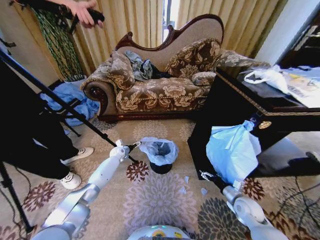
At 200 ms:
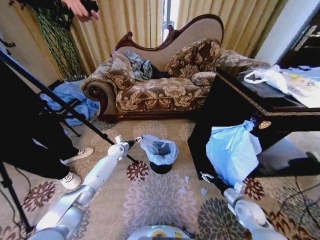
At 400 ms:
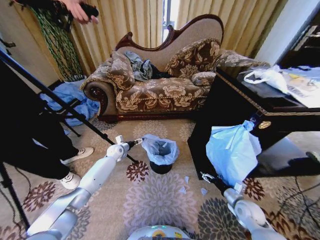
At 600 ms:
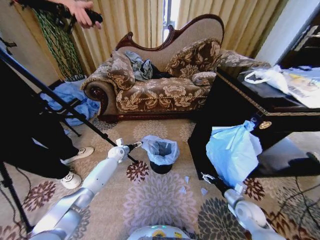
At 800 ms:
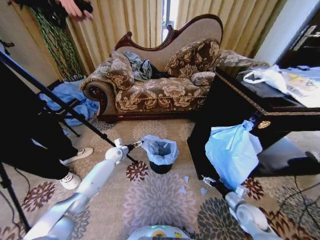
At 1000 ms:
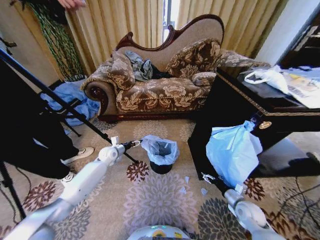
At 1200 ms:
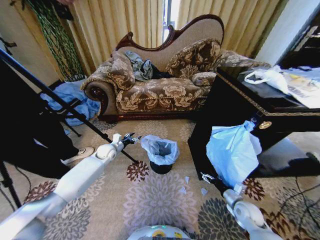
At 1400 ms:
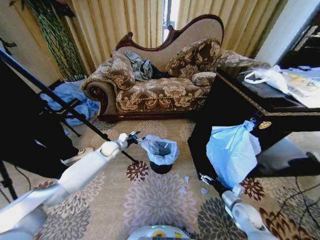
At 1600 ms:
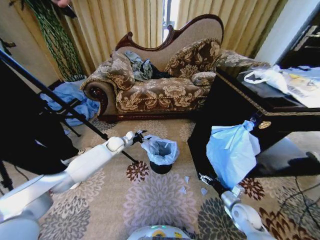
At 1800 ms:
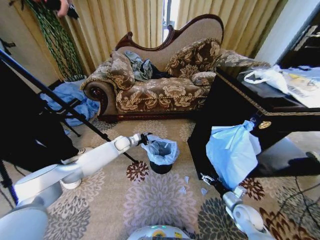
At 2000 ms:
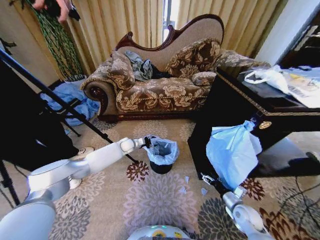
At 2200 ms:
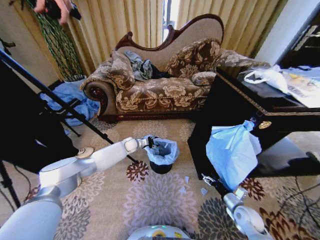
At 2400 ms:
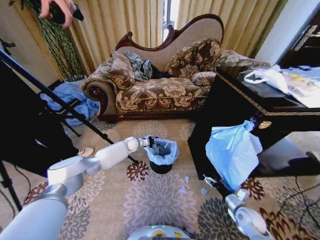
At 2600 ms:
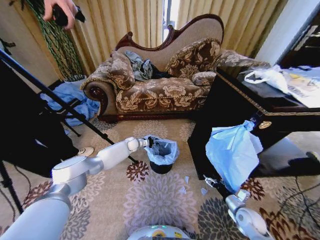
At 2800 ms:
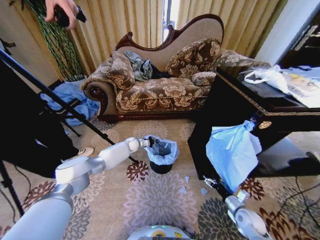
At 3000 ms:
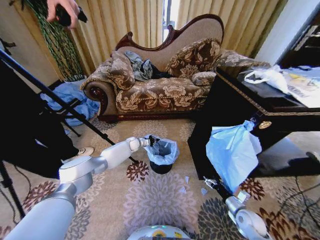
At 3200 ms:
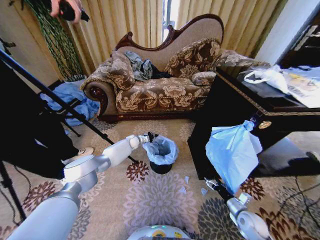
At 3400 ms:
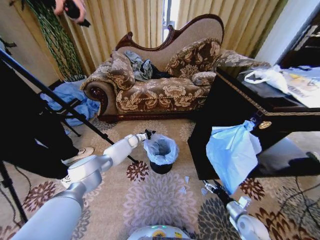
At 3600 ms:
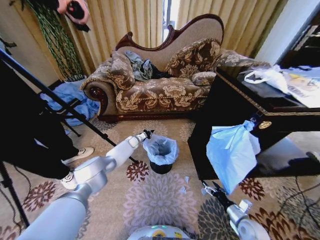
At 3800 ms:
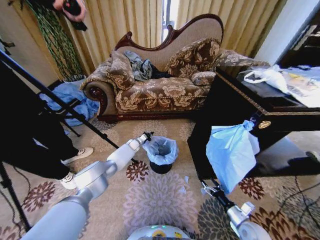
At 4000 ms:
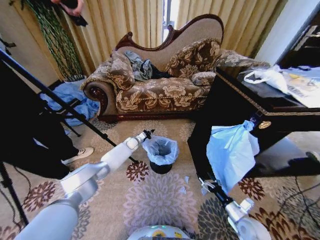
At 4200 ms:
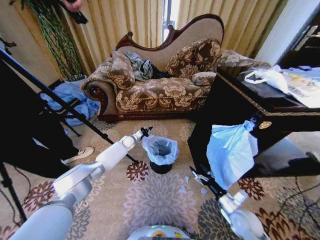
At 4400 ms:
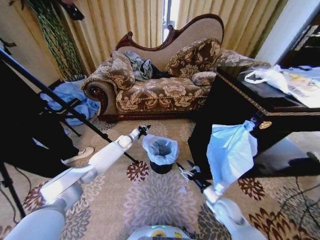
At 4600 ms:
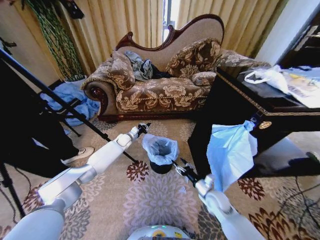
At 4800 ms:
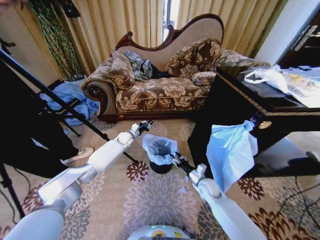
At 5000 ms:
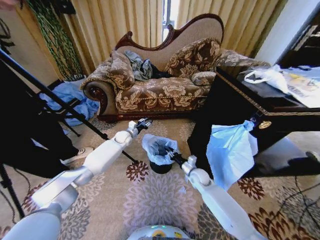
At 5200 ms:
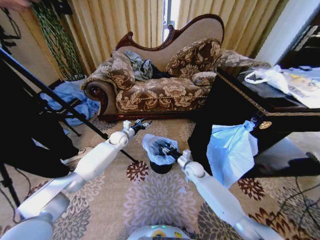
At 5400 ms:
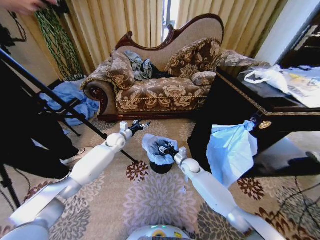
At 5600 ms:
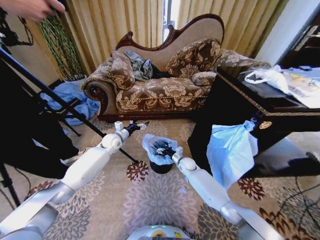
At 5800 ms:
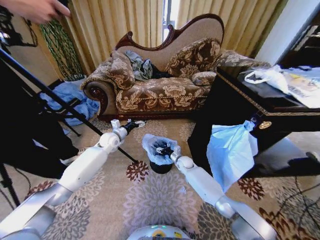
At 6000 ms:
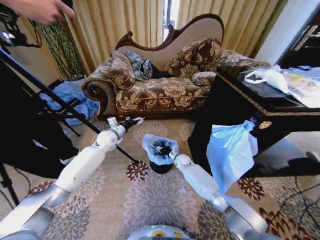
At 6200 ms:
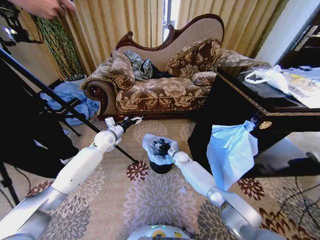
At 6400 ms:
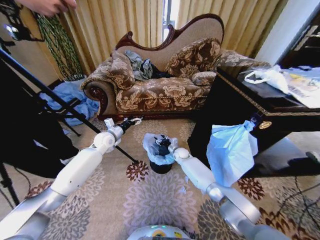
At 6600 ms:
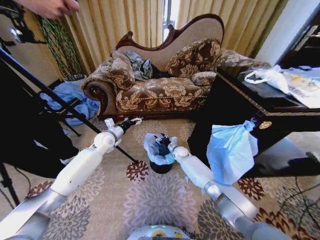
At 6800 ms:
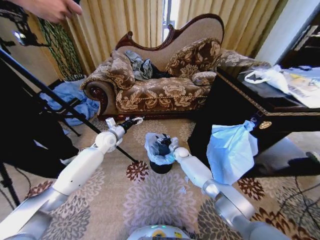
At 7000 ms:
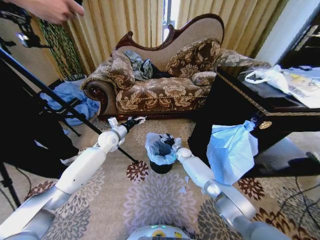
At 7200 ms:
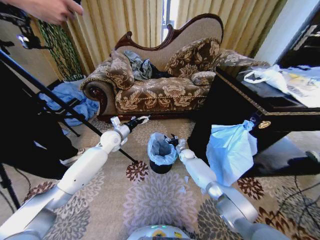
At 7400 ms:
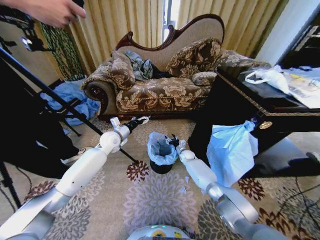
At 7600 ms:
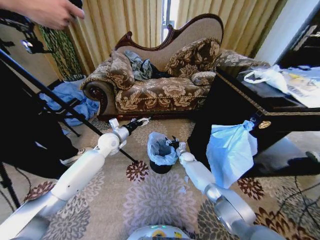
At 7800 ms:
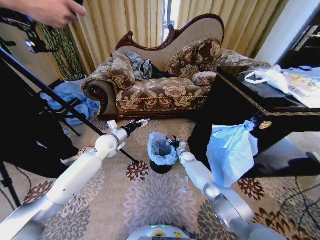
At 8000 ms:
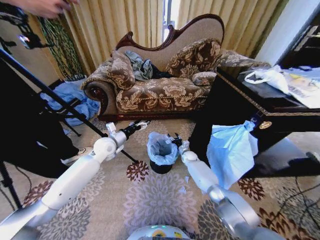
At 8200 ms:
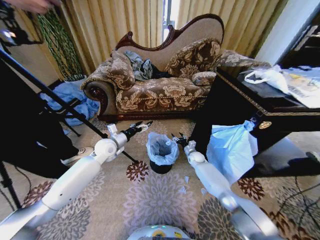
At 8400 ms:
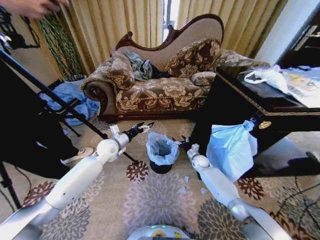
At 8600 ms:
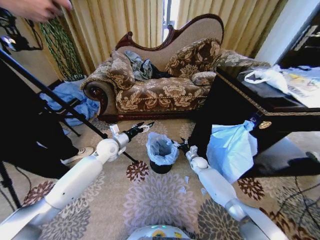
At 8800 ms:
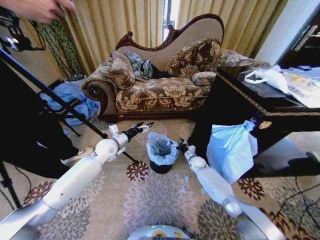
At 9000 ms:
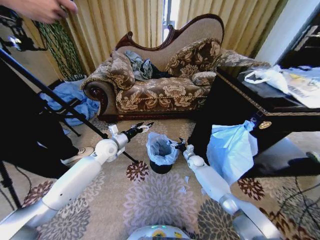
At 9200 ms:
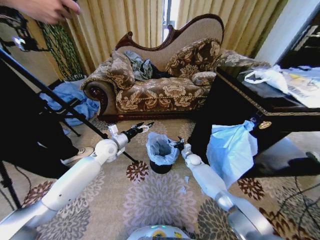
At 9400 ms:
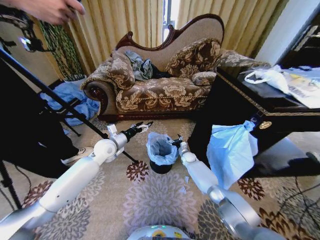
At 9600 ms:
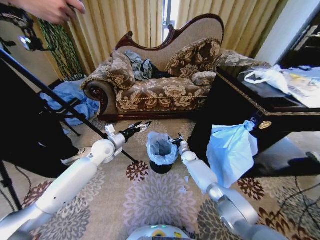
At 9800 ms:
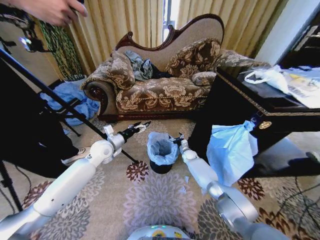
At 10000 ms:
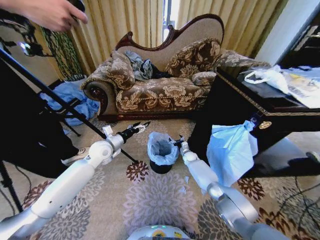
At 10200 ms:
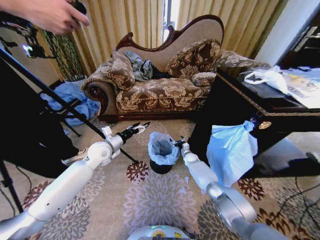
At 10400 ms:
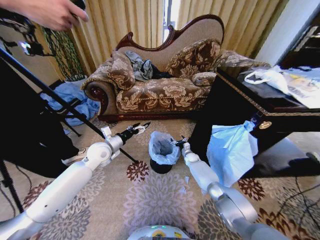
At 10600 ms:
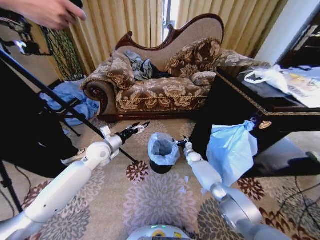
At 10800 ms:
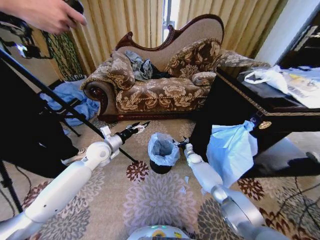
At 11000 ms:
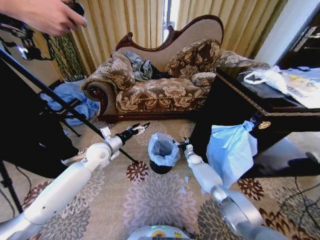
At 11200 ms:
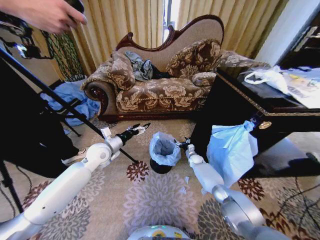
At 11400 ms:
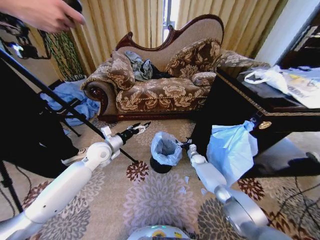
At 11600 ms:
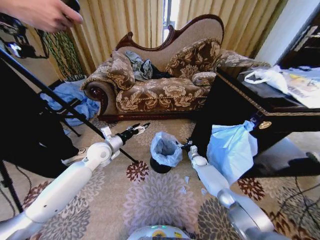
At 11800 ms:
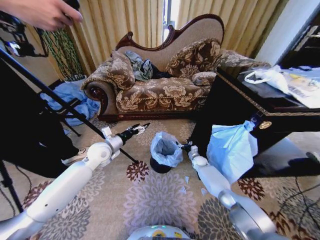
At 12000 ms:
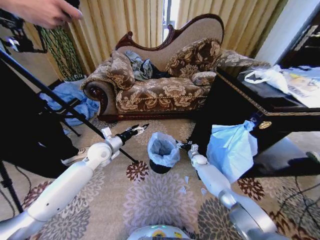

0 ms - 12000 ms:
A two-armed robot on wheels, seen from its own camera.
Task of the whole recording: Place a garbage bag over the trash bin.
0 ms - 1600 ms: The left gripper moves upward, approximately 10 cm.
1600 ms - 3000 ms: The left gripper is displaced downward, forward and to the right by some 10 cm, and closes its fingers.
3000 ms - 4400 ms: The right gripper goes some 10 cm to the left; the left gripper shifts by some 5 cm.
4400 ms - 6000 ms: The right gripper travels forward and to the left by some 30 cm, and closes its fingers. The left gripper travels upward and backward by about 15 cm, and opens its fingers.
6000 ms - 7600 ms: The right gripper ends up some 5 cm from where it was.
9000 ms - 12000 ms: There are only small adjustments of the grippers.

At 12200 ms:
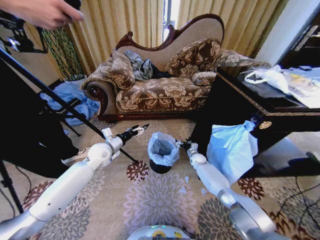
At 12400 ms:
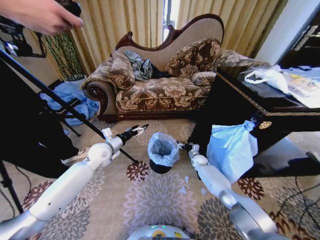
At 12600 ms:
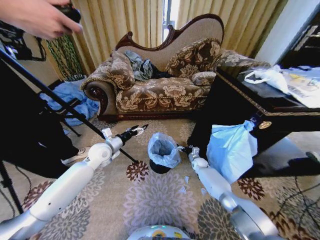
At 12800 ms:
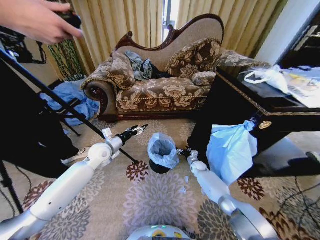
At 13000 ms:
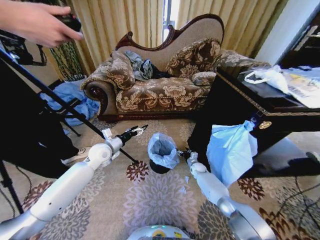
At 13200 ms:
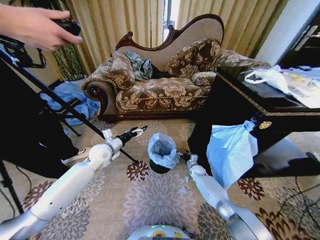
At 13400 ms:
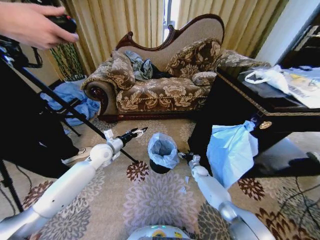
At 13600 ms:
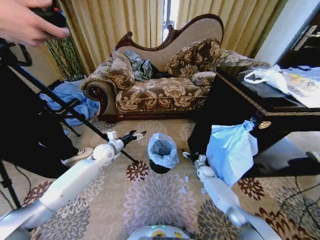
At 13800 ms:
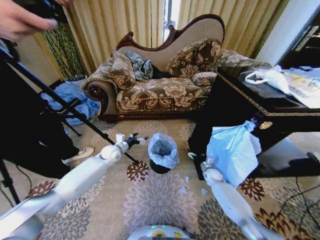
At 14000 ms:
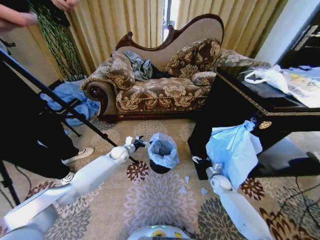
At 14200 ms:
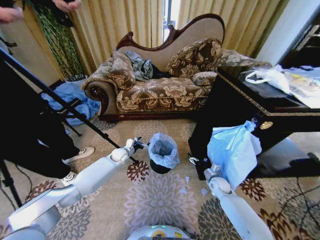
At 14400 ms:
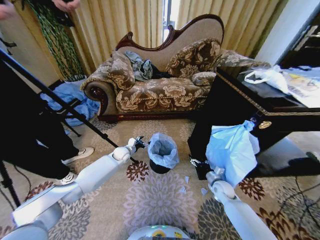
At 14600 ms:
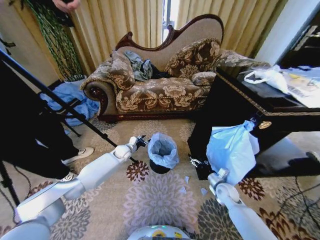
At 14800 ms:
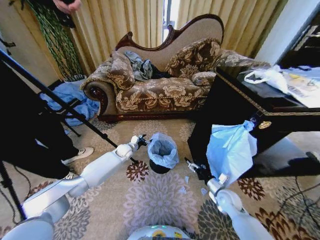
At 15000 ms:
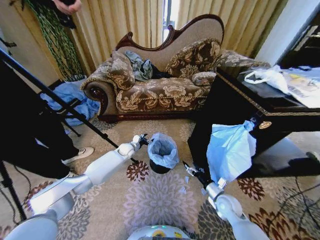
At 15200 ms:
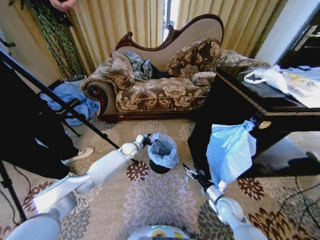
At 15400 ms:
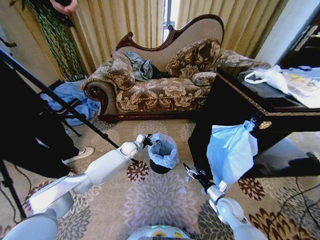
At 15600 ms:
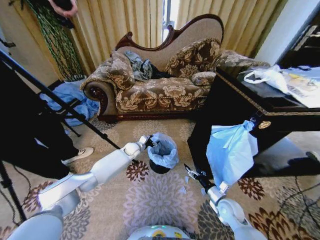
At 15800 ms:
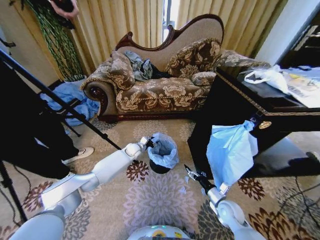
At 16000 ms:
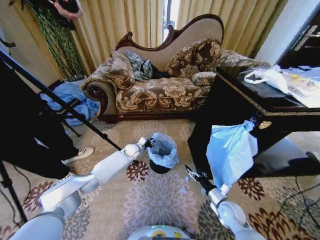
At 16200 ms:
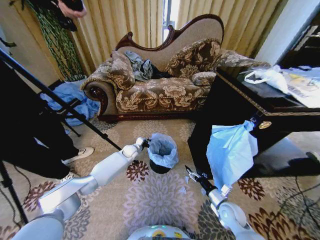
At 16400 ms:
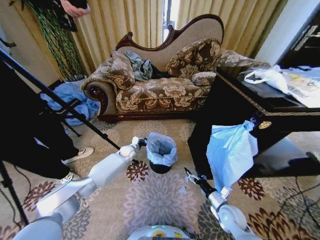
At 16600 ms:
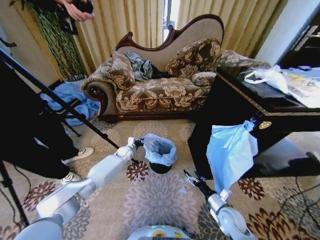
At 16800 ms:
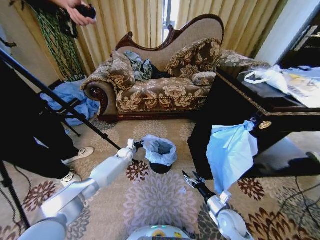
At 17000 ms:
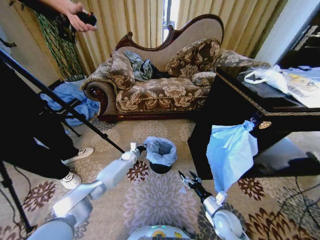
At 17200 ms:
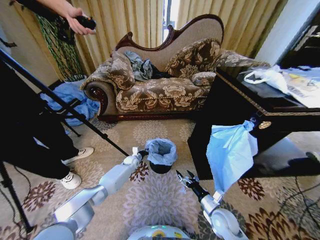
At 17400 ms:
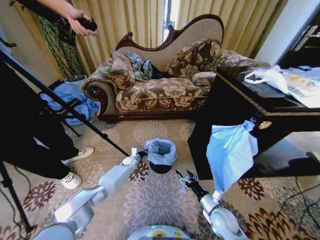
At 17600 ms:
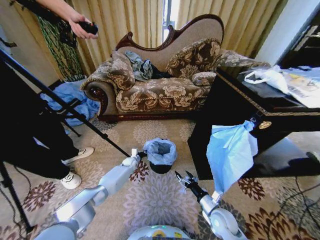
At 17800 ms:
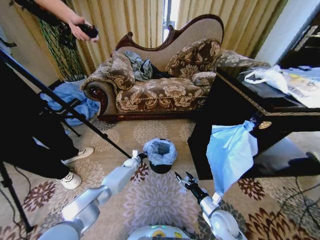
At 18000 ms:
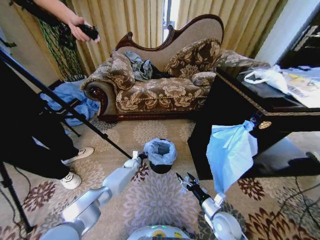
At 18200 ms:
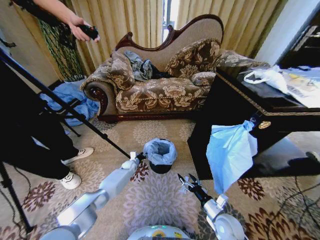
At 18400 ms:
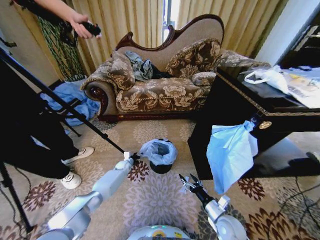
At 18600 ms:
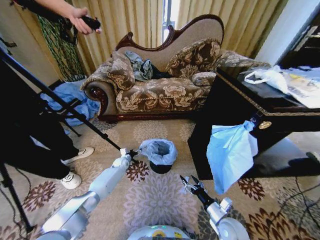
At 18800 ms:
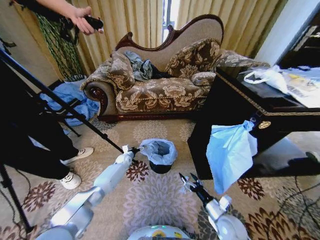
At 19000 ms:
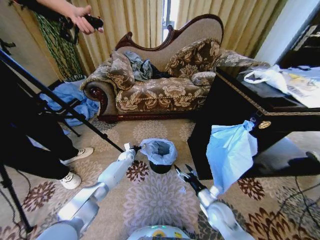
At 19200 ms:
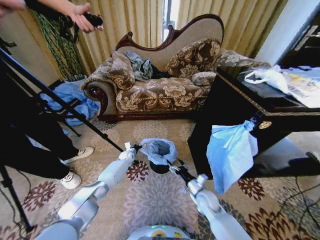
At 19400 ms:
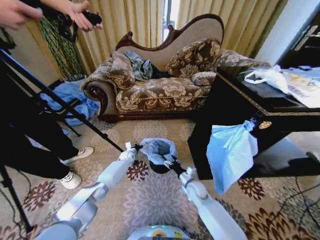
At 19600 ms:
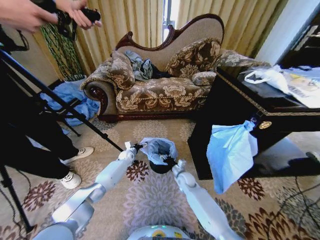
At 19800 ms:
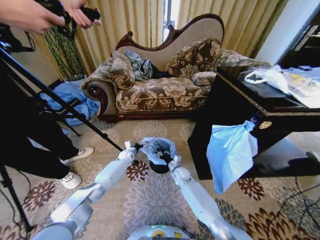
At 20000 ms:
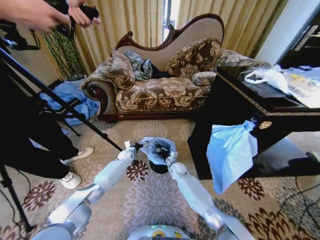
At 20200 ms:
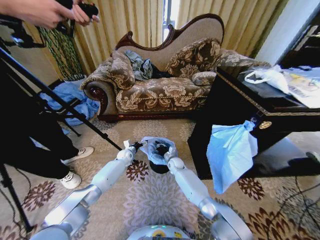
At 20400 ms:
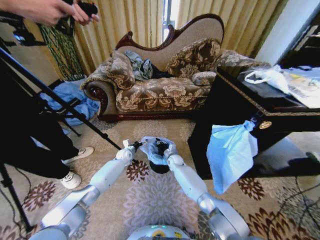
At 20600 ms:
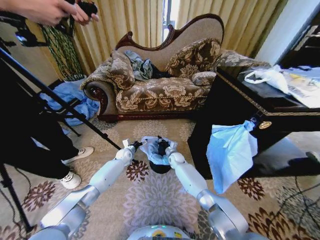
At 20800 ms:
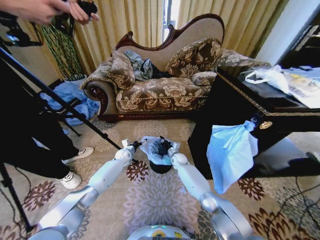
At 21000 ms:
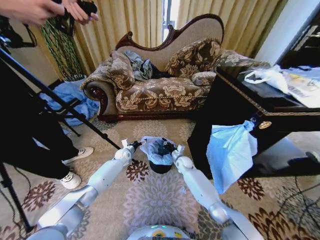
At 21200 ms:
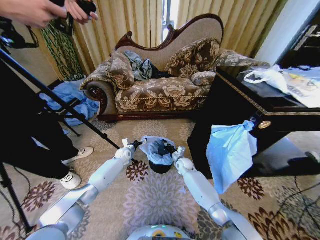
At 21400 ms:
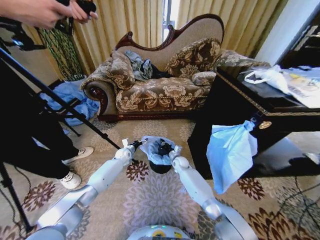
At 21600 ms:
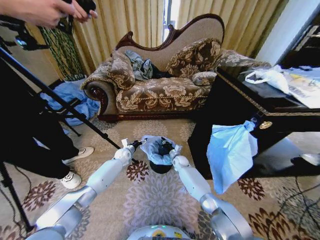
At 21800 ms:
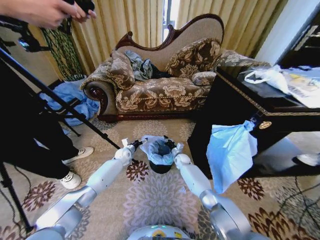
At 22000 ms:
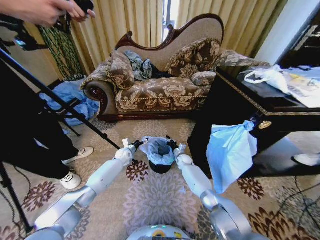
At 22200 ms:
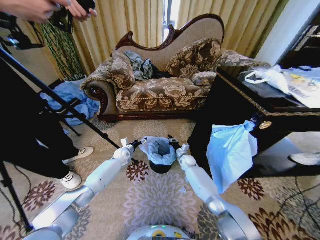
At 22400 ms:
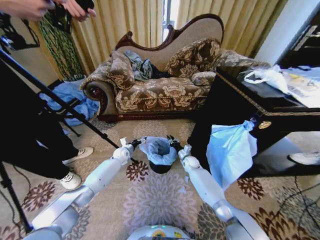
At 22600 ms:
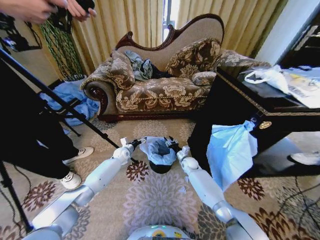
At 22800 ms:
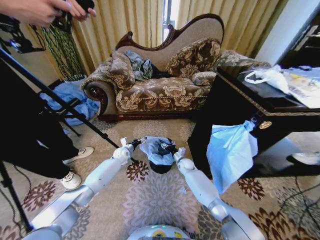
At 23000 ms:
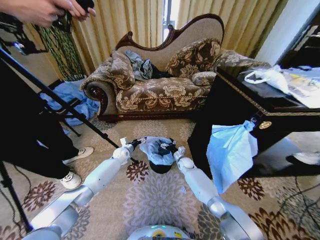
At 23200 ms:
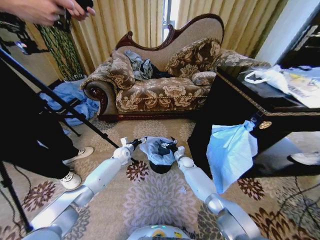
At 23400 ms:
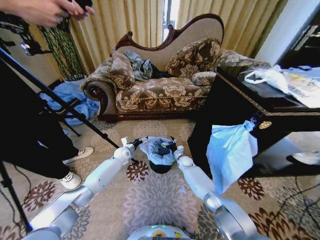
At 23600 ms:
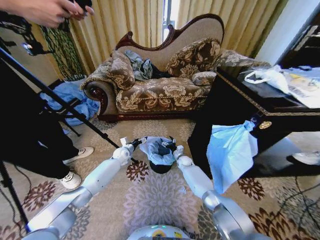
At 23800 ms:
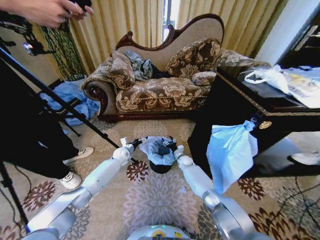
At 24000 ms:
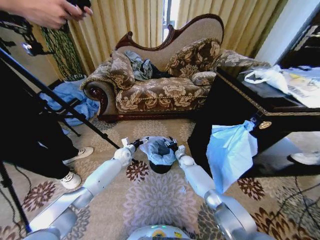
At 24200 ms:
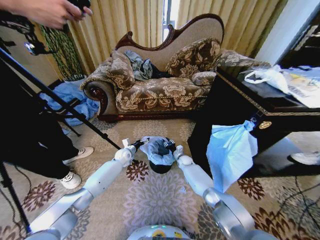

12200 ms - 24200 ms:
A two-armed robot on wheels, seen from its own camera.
Task of the whole recording: Place a garbage bag over the trash bin.
12200 ms - 13800 ms: The left gripper is displaced downward and forward by some 10 cm; the right gripper shifts approximately 10 cm backward and to the right.
13800 ms - 15200 ms: The right gripper is displaced backward by about 20 cm, while the left gripper heads to the right and forward, covering approximately 10 cm.
15200 ms - 16600 ms: The left gripper changes place by some 5 cm, and closes its fingers.
16600 ms - 18200 ms: The left gripper is displaced downward by roughly 10 cm.
18200 ms - 19800 ms: The right gripper travels forward and to the left by about 30 cm, and closes up, while the left gripper shifts about 5 cm upward, and opens its fingers.
19800 ms - 21200 ms: The right gripper goes some 5 cm forward, and closes.
21200 ms - 22600 ms: The right gripper opens up.
22600 ms - 24200 ms: The right gripper changes place by about 5 cm, and opens and closes again.
